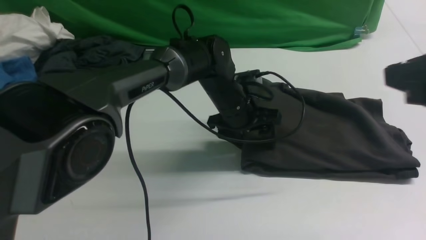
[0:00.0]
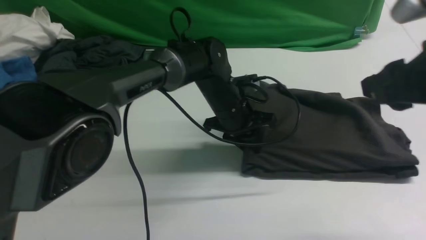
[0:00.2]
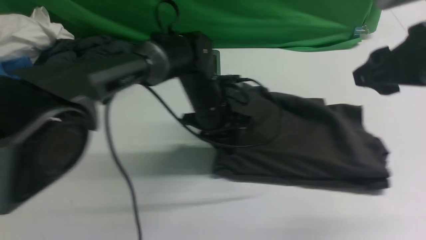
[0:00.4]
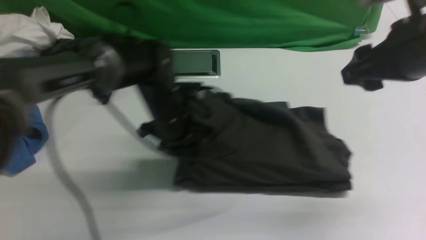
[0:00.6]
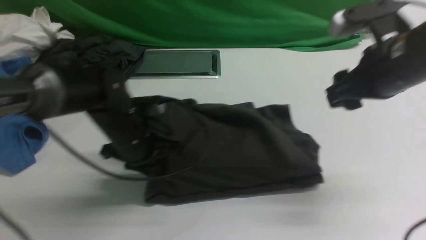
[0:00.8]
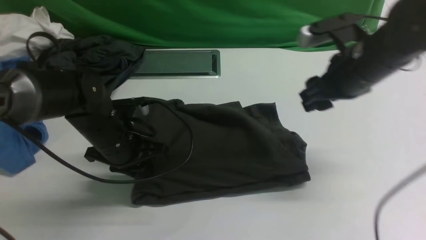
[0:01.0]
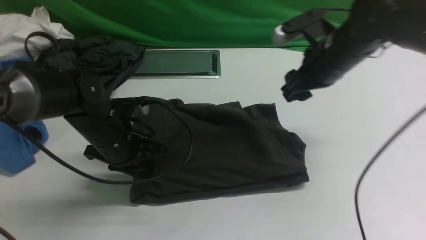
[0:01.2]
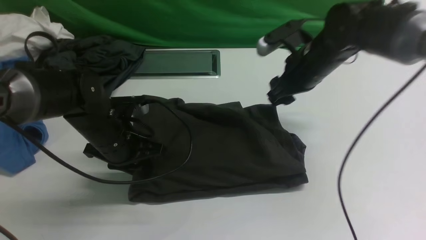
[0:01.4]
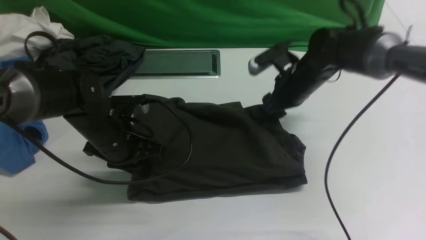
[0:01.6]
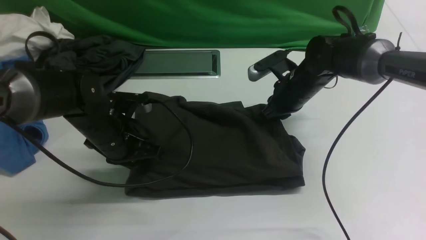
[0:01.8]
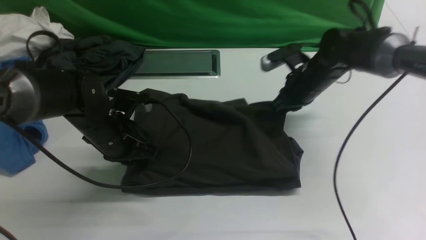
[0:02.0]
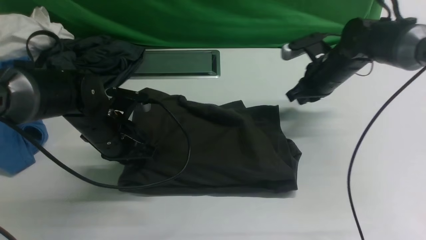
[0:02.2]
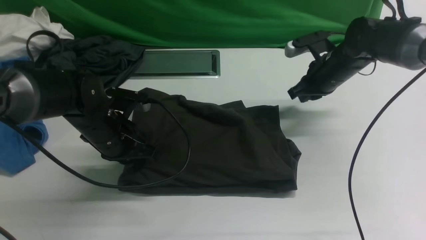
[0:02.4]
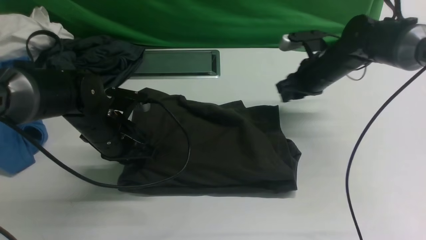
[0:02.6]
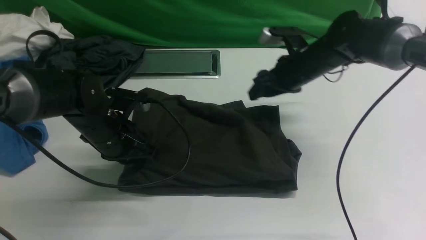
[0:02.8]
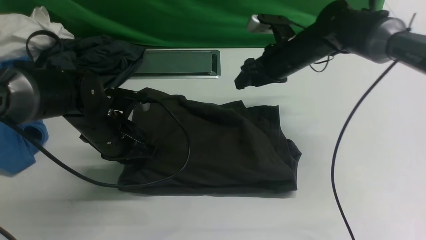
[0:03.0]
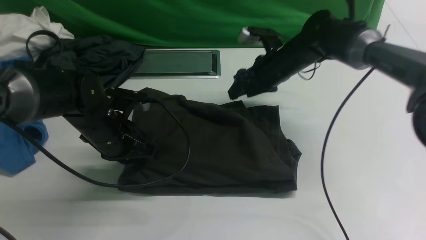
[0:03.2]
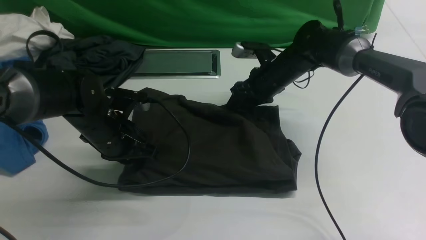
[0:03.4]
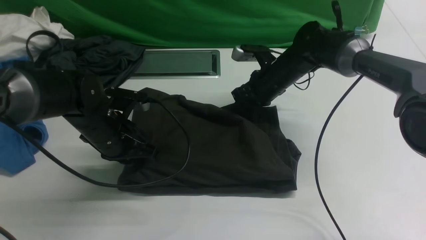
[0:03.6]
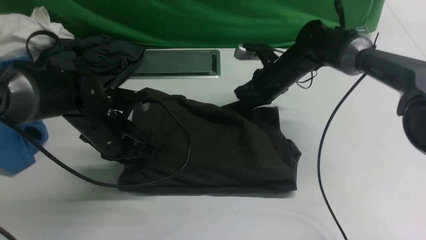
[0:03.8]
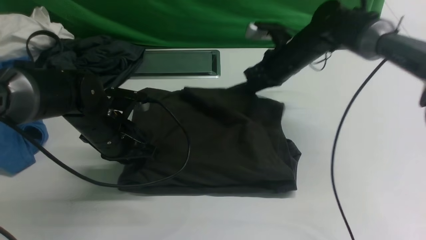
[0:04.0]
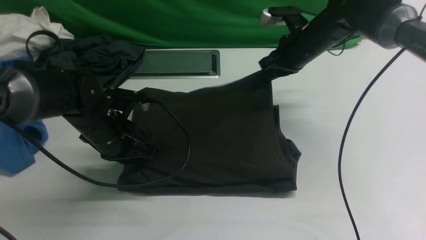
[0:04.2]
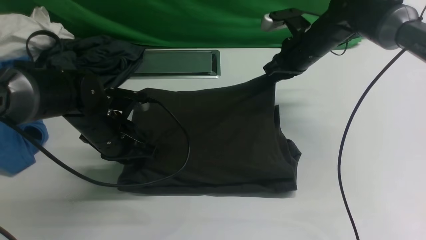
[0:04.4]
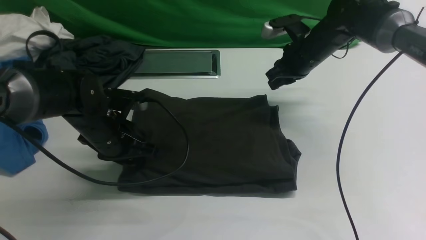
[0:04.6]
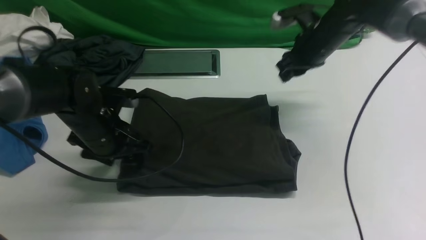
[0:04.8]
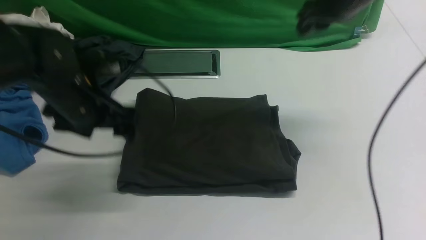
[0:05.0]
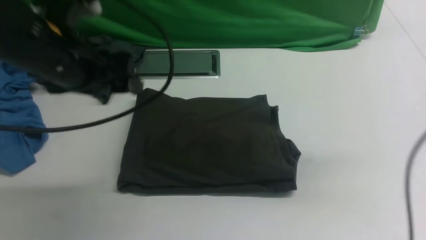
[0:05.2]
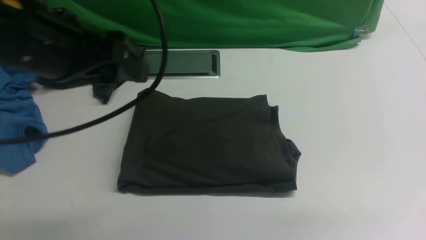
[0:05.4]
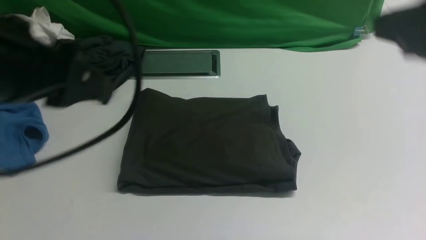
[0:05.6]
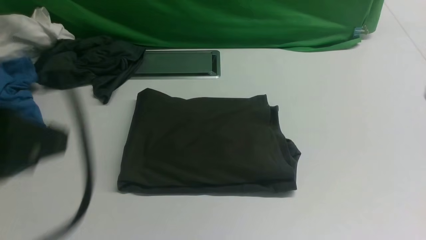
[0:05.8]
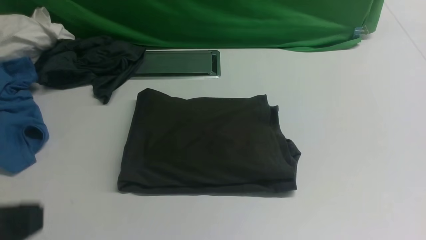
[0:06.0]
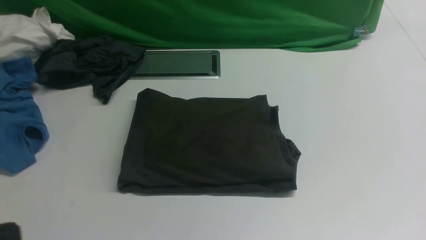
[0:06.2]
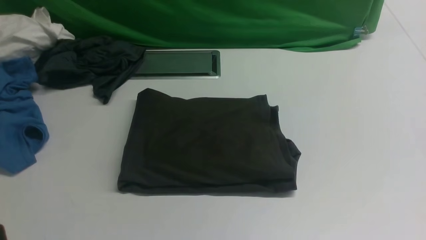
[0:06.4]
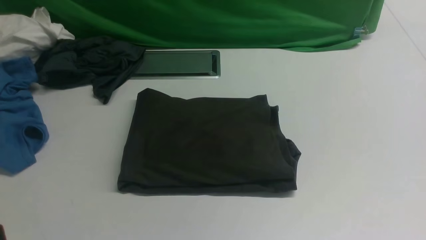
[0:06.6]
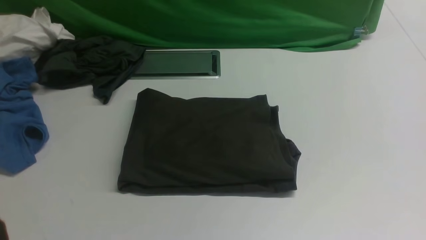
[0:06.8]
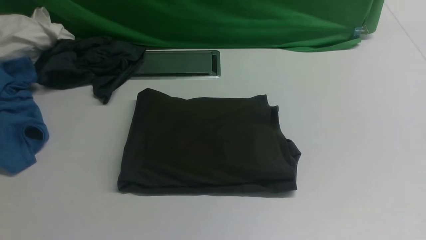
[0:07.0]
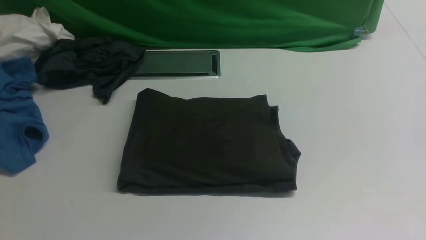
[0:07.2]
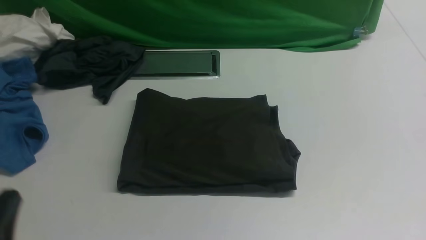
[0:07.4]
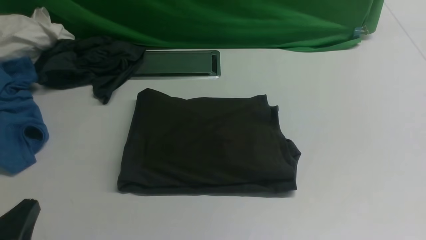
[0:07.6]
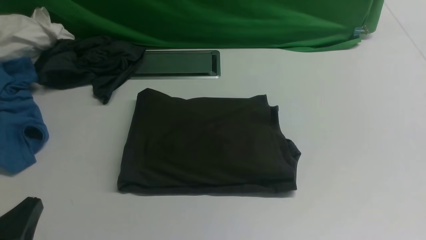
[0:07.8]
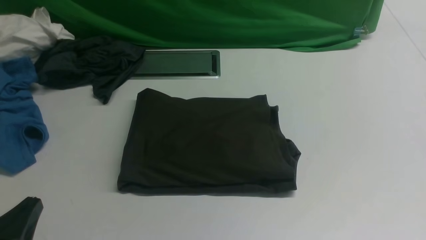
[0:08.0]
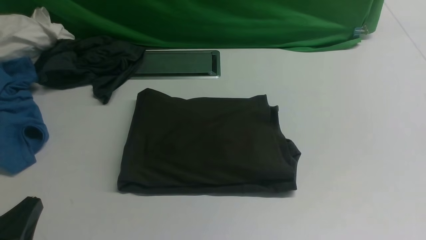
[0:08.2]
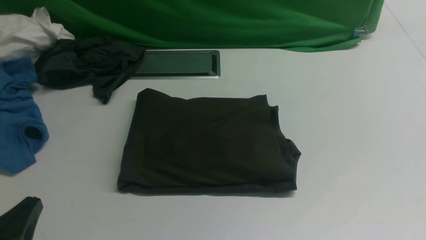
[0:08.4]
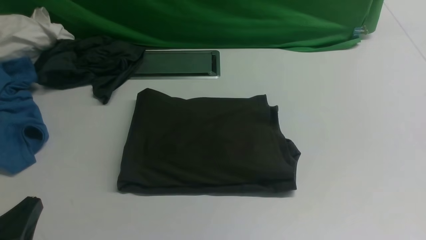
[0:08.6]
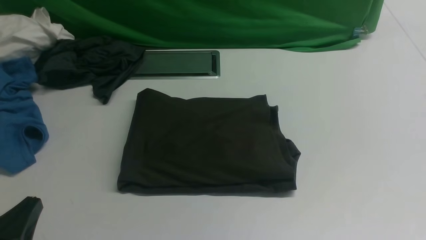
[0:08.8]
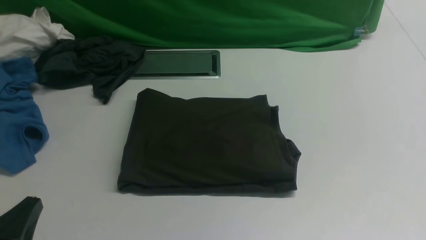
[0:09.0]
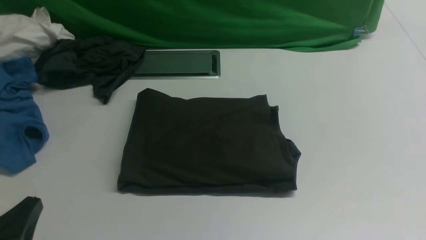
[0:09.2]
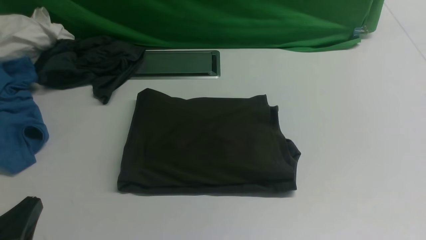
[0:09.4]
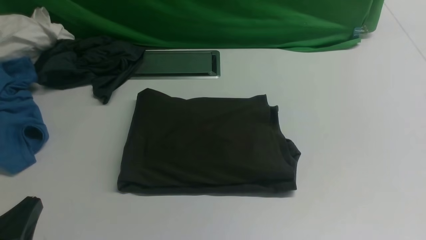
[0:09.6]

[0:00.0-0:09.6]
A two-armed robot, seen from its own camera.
0:00.0 to 0:01.6: The right gripper goes approximately 30 cm forward, downward and to the left, while the left gripper travels to the left and backward by about 20 cm, and closes.
0:01.6 to 0:03.2: The right gripper ends up about 5 cm from where it was, and closes, then opens again.
0:03.2 to 0:04.8: The right gripper shifts some 10 cm upward and to the right, and closes, then opens again. The left gripper opens up.
0:04.8 to 0:06.4: The left gripper moves backward and upward, about 35 cm, and closes up. The right gripper travels backward by roughly 40 cm, and closes up.
0:06.4 to 0:08.0: The left gripper is displaced downward by some 15 cm.

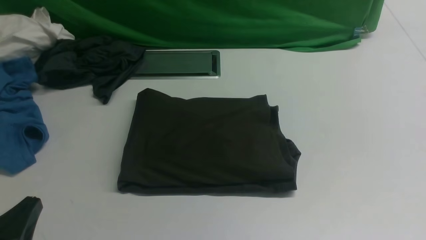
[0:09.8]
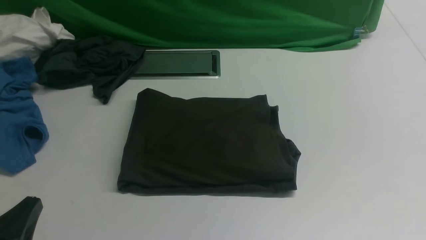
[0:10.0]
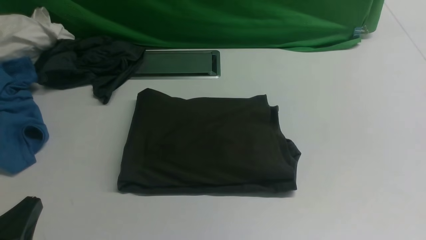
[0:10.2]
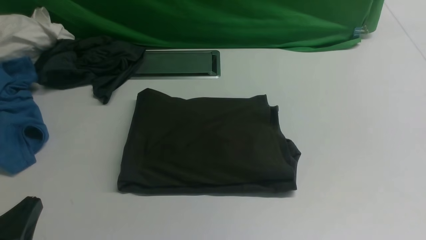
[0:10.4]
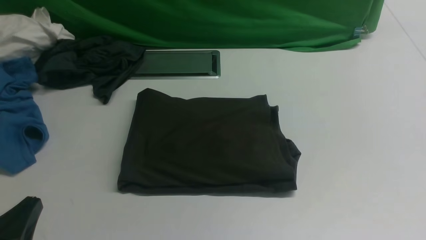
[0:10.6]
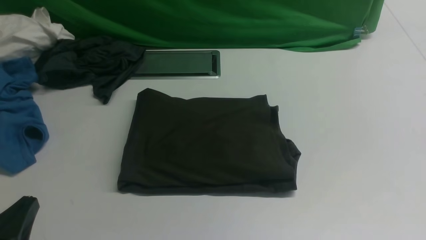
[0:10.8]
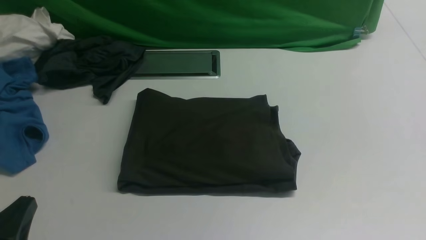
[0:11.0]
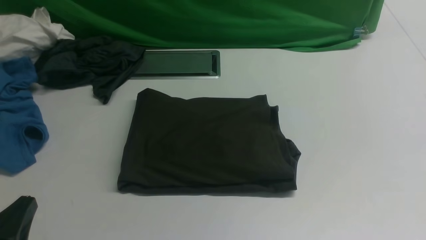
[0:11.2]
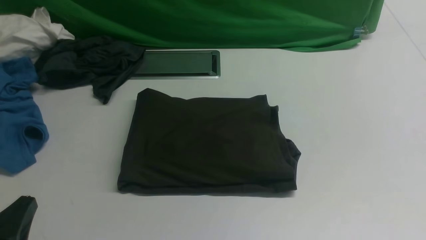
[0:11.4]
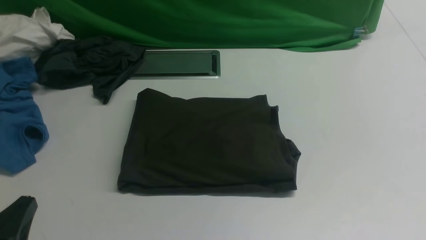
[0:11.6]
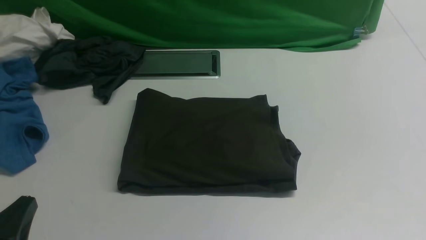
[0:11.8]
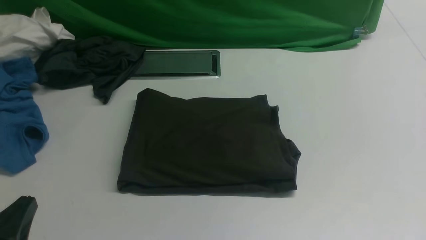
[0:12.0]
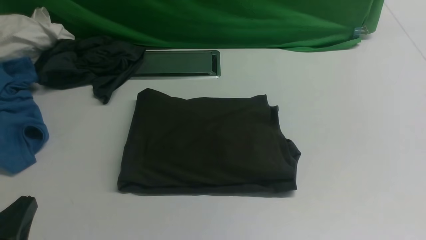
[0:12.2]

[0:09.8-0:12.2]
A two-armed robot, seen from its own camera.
0:09.8 to 0:12.2: Both grippers stay put.
